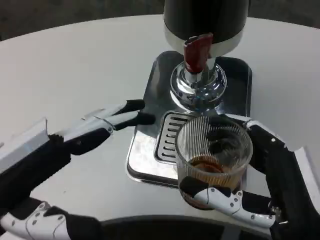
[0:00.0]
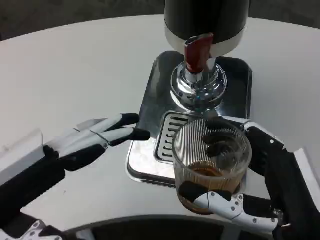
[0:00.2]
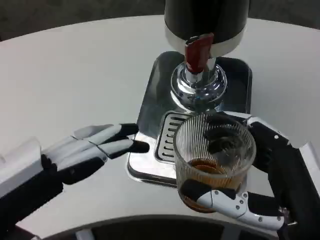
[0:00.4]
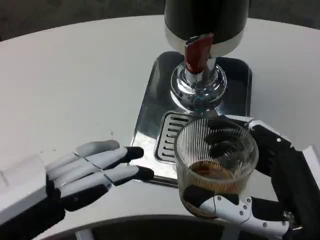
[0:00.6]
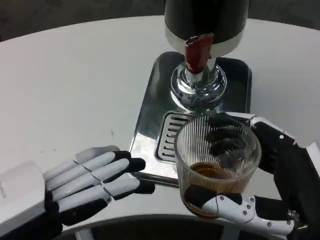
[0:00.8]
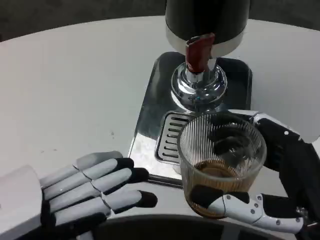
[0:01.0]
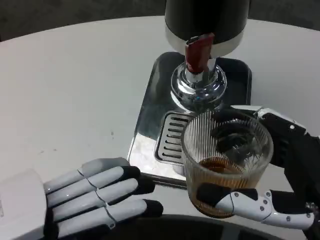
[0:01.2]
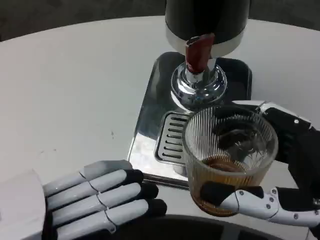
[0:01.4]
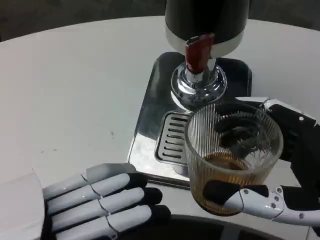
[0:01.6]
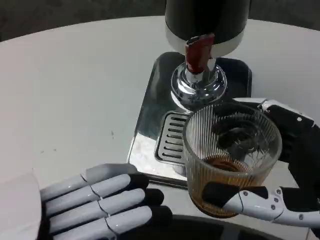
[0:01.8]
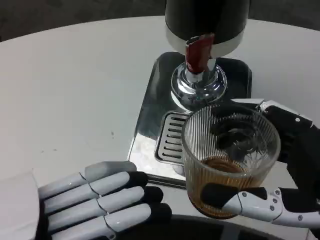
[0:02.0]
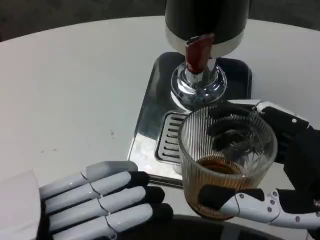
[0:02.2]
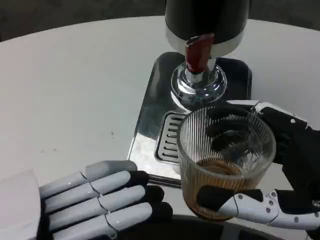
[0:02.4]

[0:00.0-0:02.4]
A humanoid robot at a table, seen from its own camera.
Task of the whole recording: Grasp the cup under the faucet to collect the drink, then remove the cup.
0:00.0 to 0:01.2: The right hand ends up about 5 cm from where it was.
0:01.2 to 0:02.4: The hands move only a little.

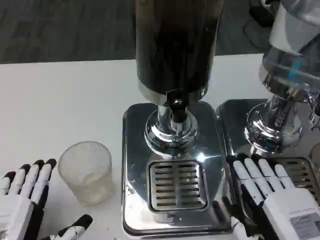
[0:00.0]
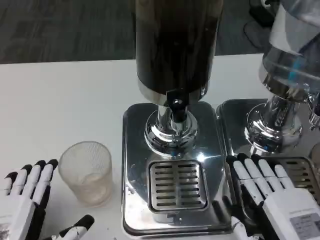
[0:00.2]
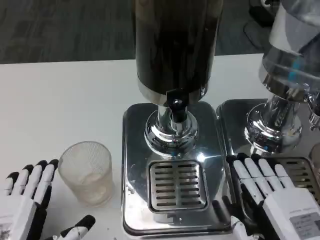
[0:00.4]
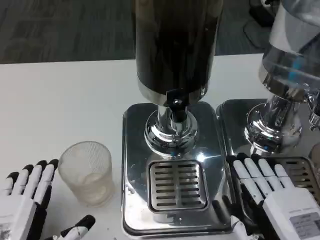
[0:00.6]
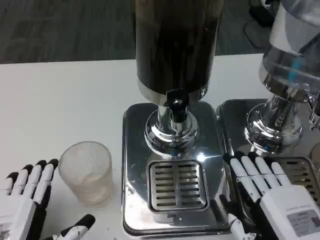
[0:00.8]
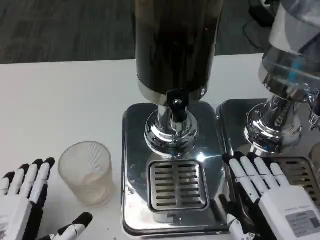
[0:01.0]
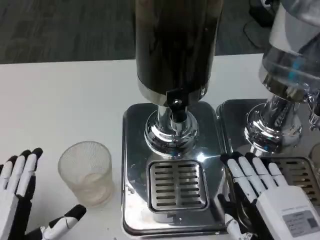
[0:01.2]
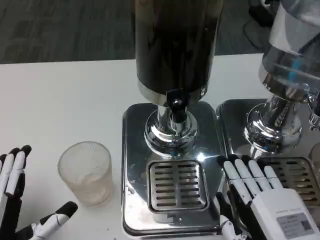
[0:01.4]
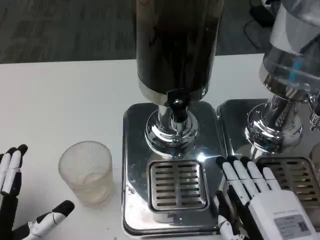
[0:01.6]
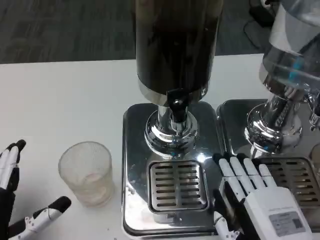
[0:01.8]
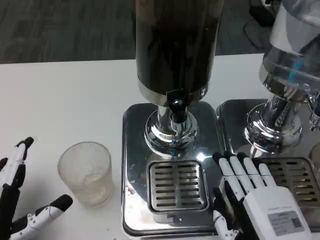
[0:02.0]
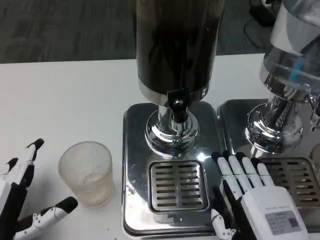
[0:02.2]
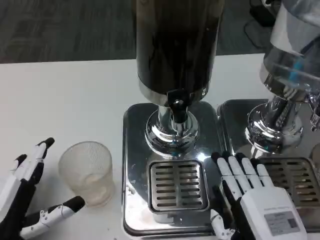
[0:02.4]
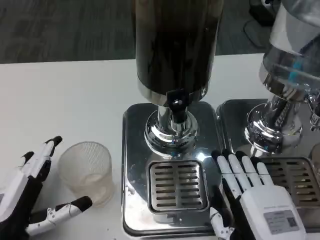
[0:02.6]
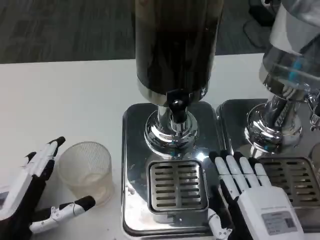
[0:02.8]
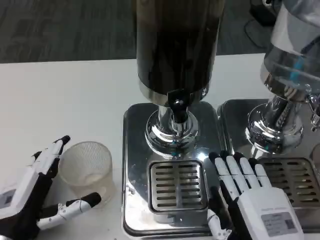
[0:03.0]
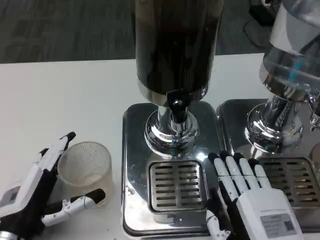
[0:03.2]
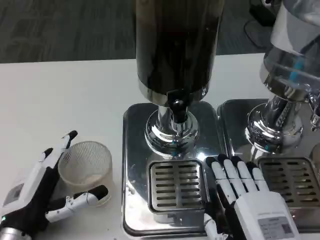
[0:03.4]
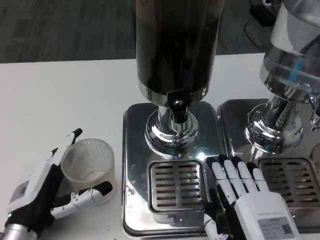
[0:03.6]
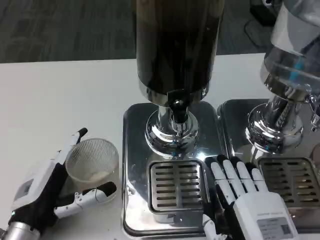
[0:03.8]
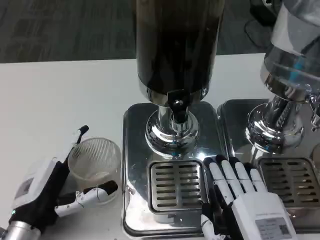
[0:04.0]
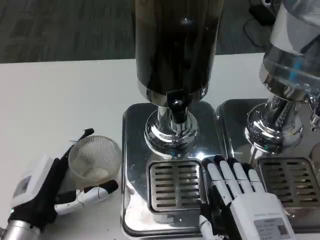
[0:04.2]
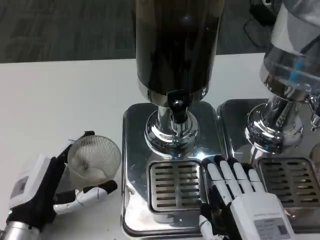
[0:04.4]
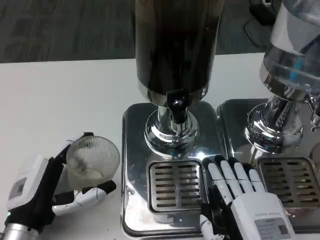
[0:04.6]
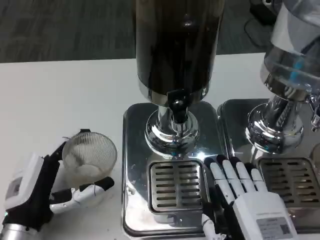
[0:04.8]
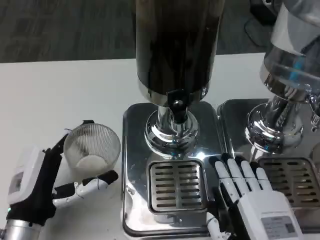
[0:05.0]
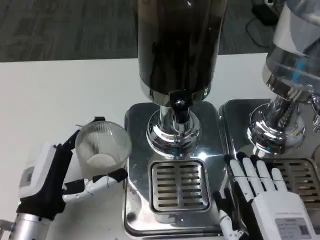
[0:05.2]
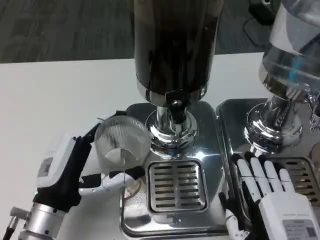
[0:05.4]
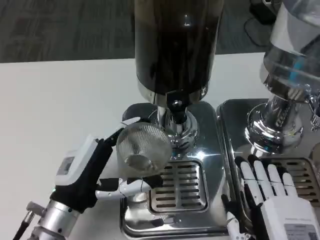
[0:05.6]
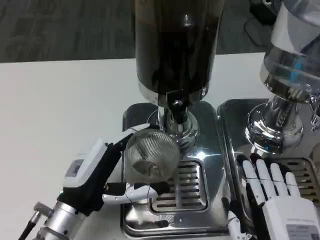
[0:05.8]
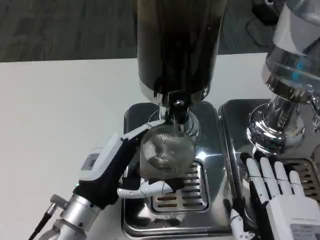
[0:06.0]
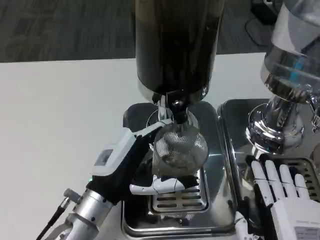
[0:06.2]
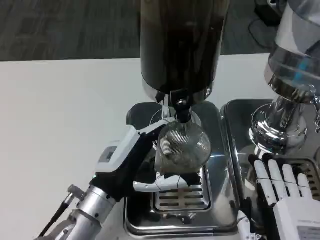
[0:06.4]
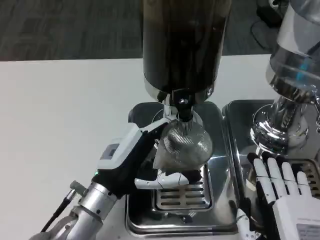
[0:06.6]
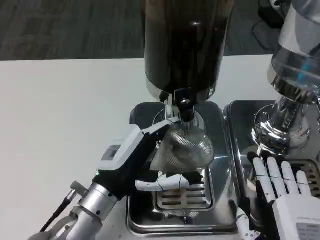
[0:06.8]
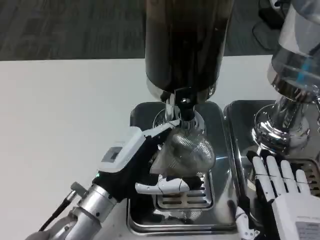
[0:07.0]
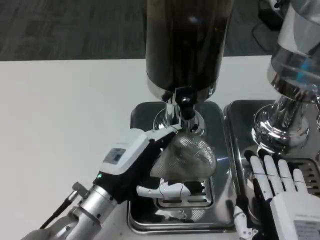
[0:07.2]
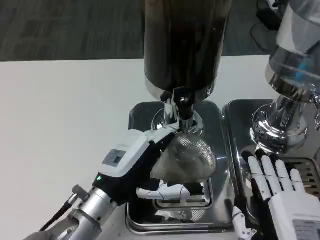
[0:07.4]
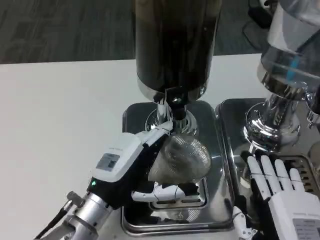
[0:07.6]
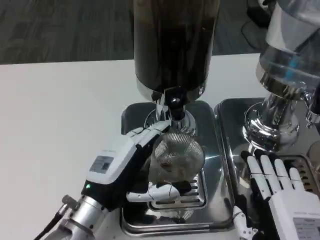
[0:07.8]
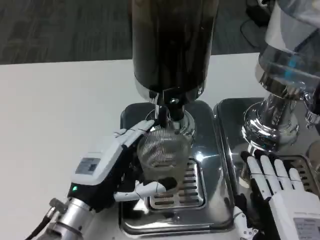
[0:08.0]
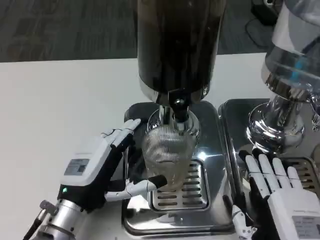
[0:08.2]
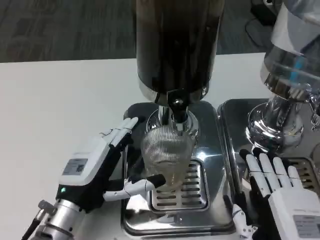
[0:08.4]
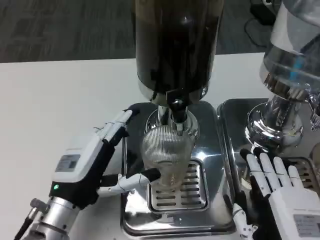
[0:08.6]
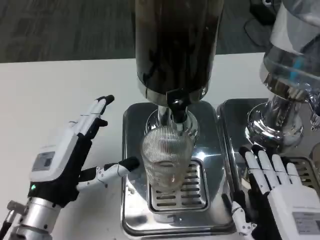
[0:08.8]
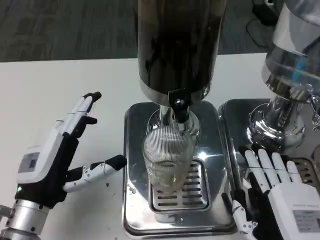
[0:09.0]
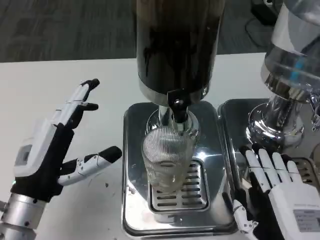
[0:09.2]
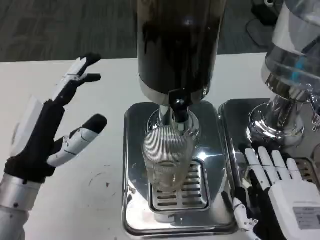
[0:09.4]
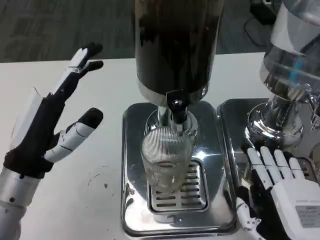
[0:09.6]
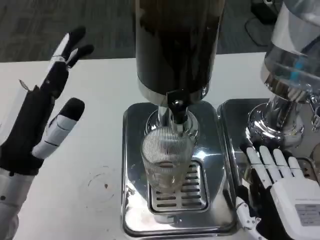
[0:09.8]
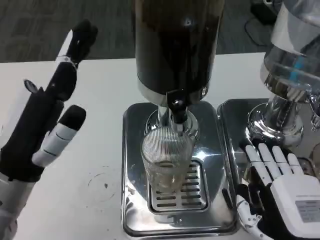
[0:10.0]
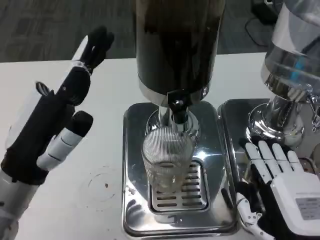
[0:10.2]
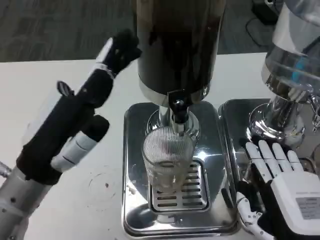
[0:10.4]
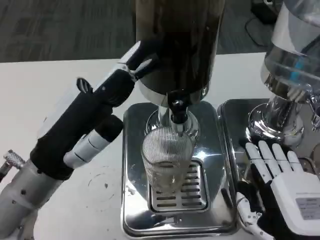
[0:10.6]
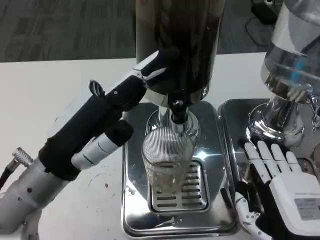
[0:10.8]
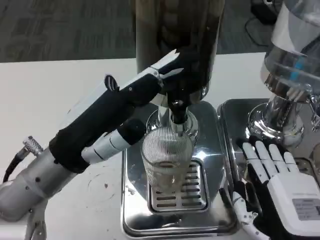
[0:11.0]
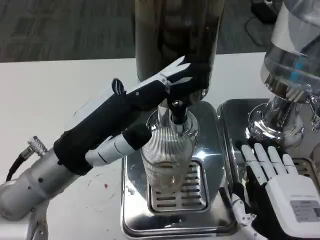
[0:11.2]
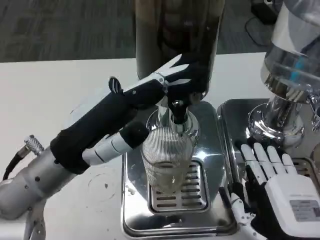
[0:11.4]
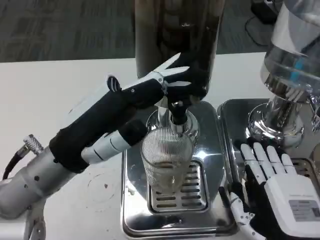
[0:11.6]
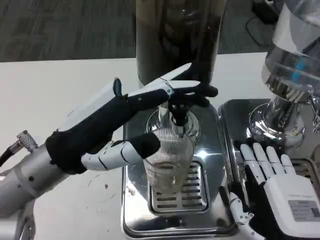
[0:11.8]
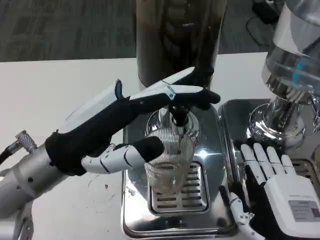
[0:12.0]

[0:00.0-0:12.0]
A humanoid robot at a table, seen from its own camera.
Task of the whole recording: Grasp the cup under the faucet to collect the drink, then remove the cup.
0:00.0 to 0:01.6: The hands move only a little.
0:01.6 to 0:03.0: The left hand heads forward, covering about 5 cm.
0:03.0 to 0:04.4: The hands move only a little.
0:04.4 to 0:06.0: The left hand moves to the right, approximately 10 cm.
0:07.6 to 0:09.0: The left hand heads to the left, covering approximately 5 cm.
0:09.0 to 0:10.4: The left hand goes about 5 cm upward.

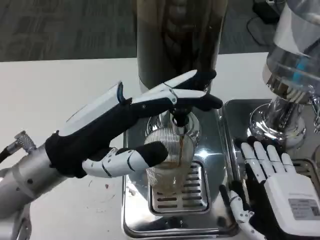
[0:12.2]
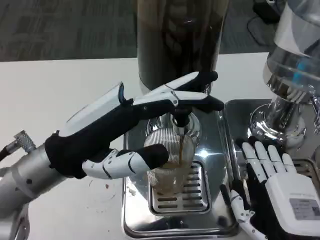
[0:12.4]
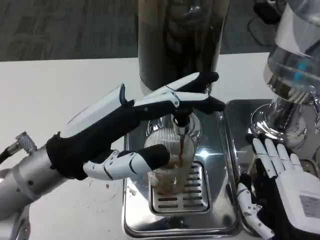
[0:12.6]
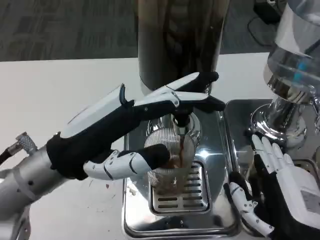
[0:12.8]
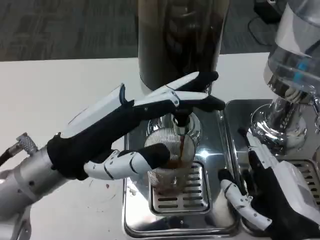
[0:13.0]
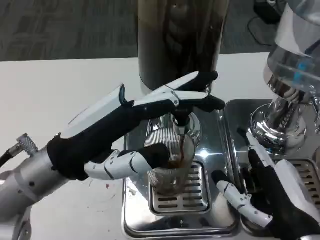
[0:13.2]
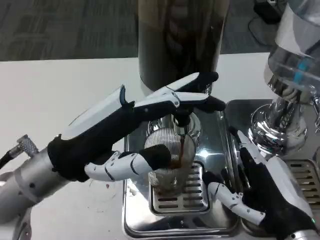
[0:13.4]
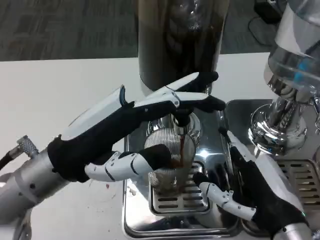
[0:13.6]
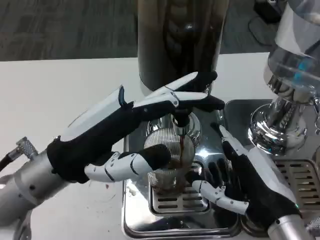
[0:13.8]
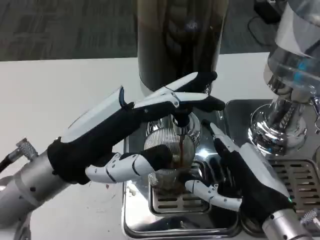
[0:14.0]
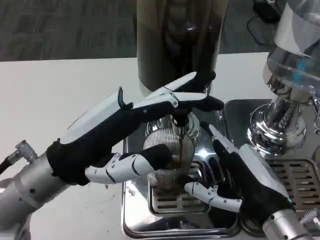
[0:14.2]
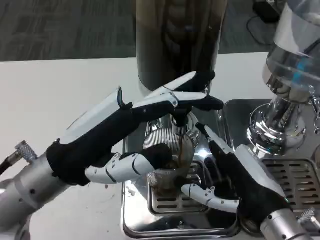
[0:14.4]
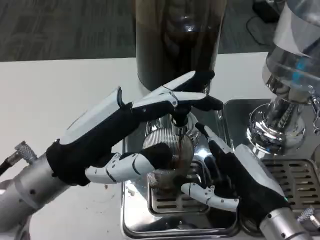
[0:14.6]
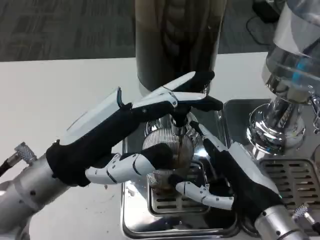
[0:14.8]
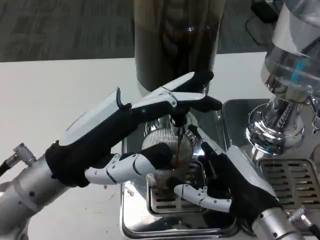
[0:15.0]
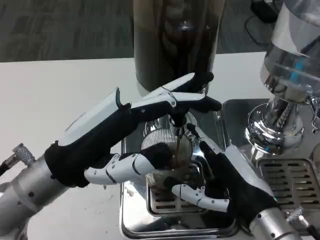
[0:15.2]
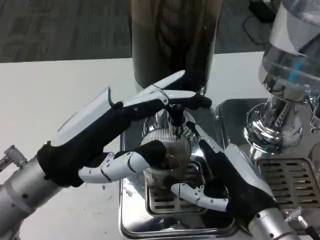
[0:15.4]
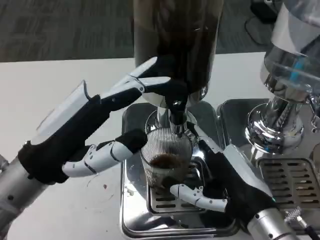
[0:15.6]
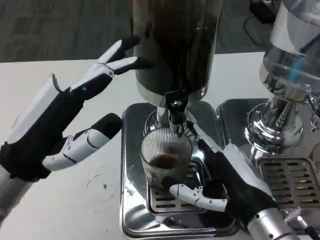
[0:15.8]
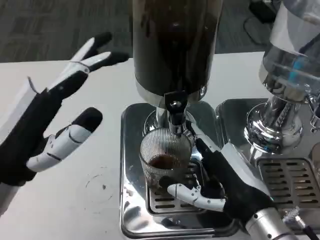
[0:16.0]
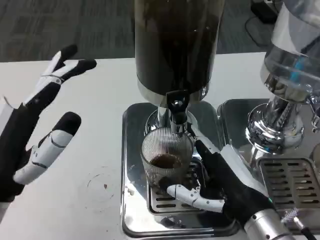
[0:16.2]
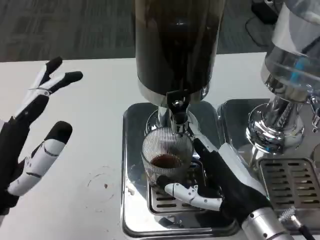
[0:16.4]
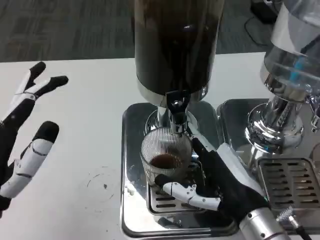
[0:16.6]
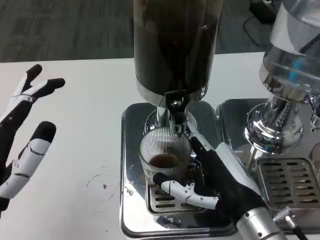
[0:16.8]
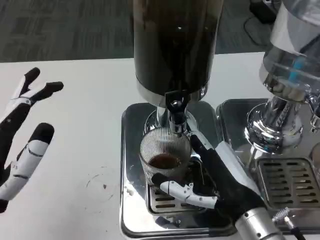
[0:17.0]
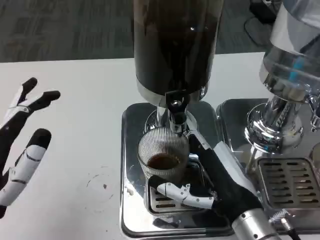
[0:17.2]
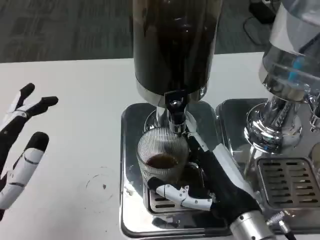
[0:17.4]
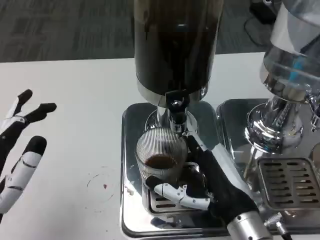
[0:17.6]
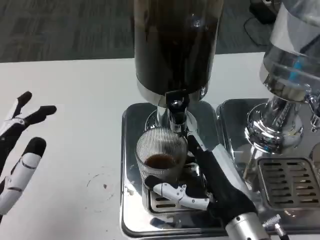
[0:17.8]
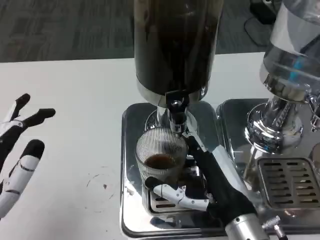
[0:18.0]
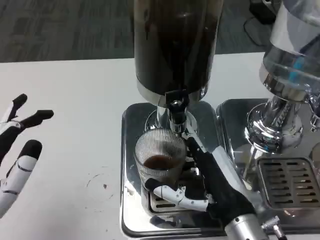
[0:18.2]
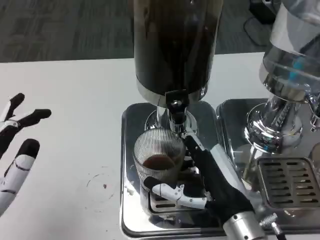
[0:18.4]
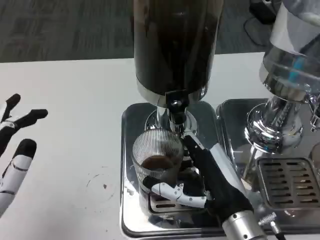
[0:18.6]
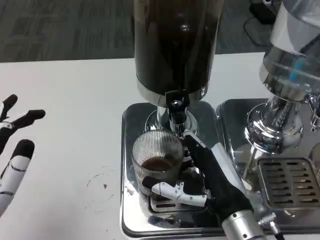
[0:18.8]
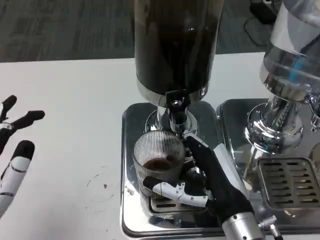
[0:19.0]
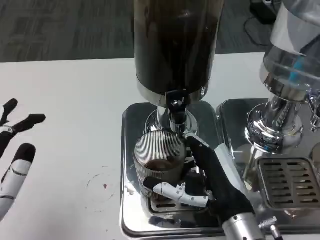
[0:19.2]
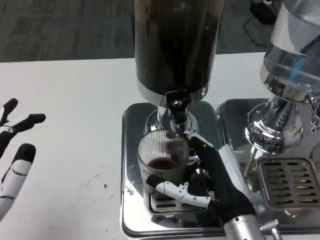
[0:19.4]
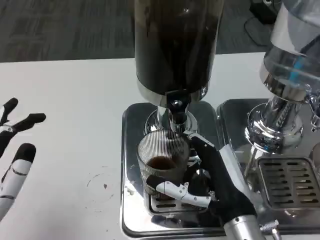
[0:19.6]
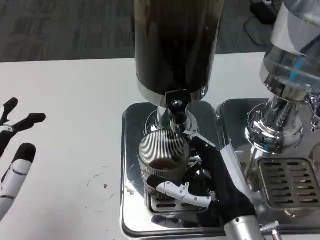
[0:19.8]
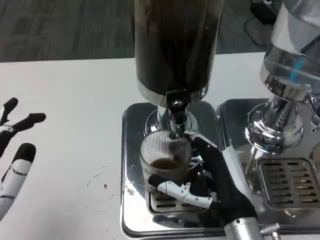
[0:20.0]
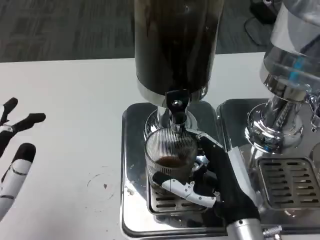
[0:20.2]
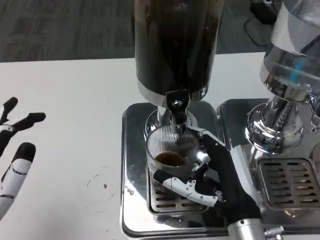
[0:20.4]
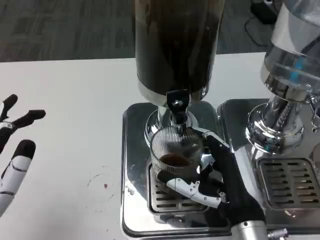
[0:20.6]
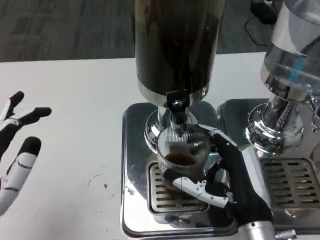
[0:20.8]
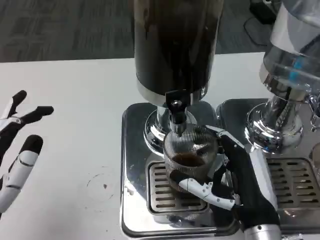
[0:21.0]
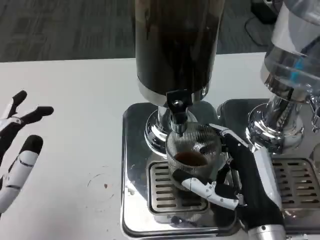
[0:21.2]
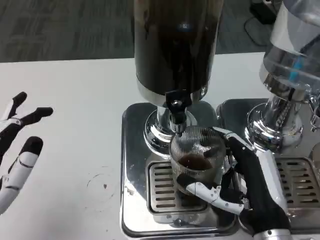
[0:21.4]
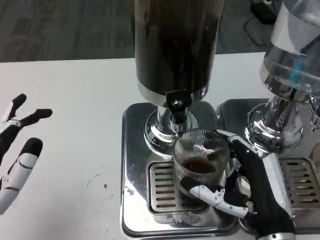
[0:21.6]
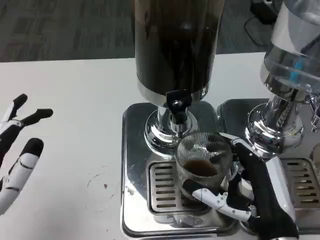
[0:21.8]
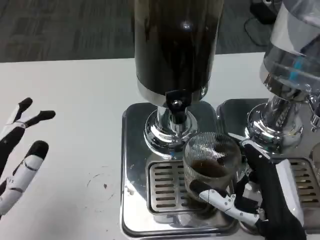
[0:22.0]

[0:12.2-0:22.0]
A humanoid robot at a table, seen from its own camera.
Task of the whole recording: Grasp the cup under the faucet to collect the drink, then remove the cup.
0:15.0 to 0:16.4: The left hand goes some 10 cm backward and to the left.
0:17.8 to 0:20.6: The hands stay close to where they were, moving slightly.
0:20.6 to 0:22.0: The right hand moves about 5 cm.
